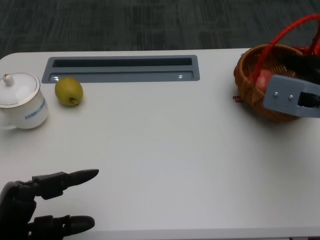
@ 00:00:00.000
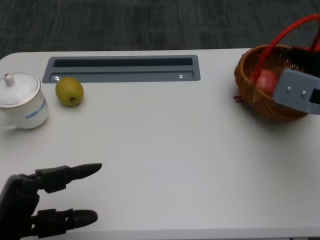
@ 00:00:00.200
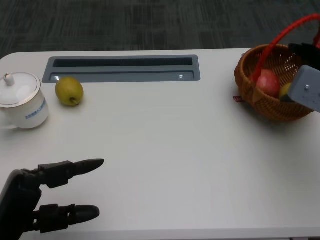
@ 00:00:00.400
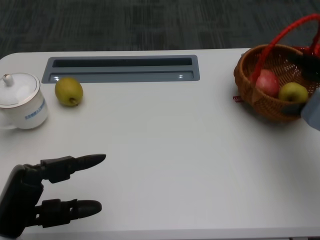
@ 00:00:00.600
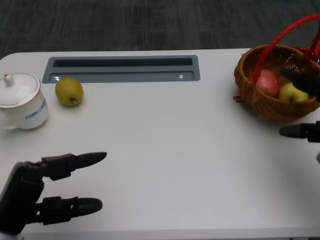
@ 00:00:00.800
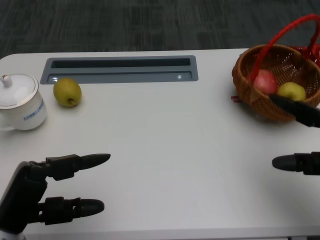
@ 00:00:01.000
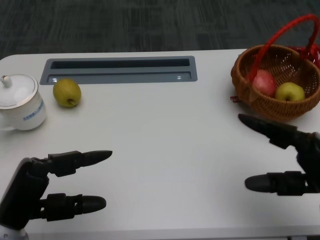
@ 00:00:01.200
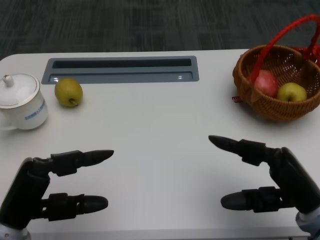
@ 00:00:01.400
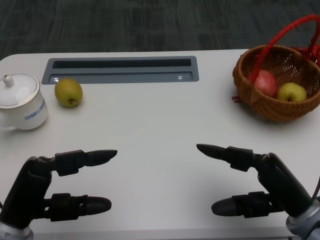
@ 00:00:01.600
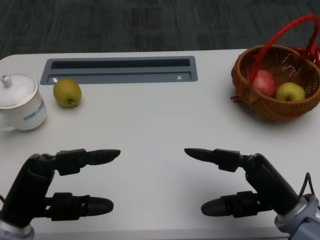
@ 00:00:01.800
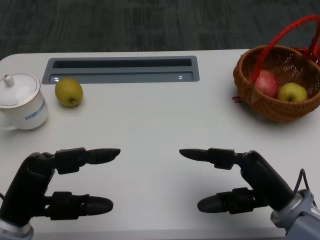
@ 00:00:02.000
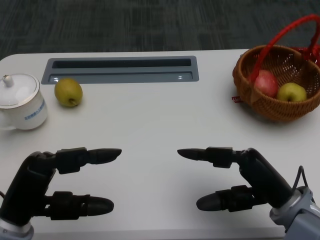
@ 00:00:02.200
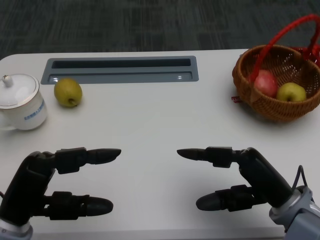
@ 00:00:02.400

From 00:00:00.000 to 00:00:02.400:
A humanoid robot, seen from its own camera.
From 00:00:00.000 to 00:00:01.200: The right hand goes some 15 cm backward and downward.
From 00:00:01.200 to 00:00:02.400: The right hand travels to the left by roughly 5 cm.
